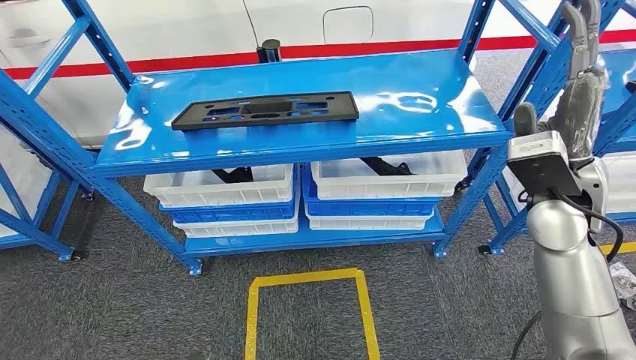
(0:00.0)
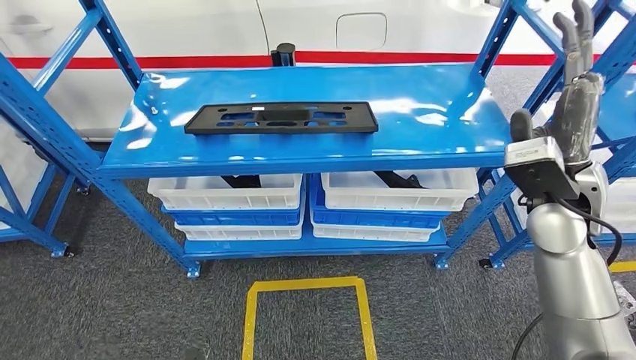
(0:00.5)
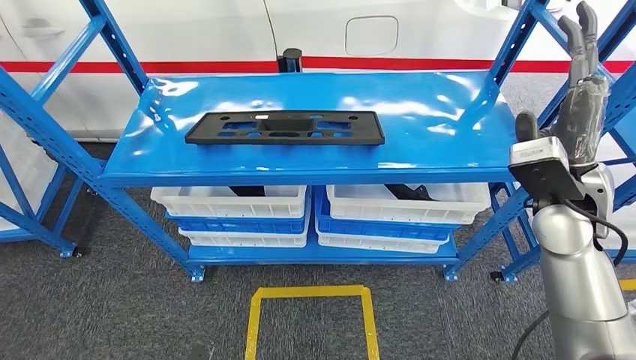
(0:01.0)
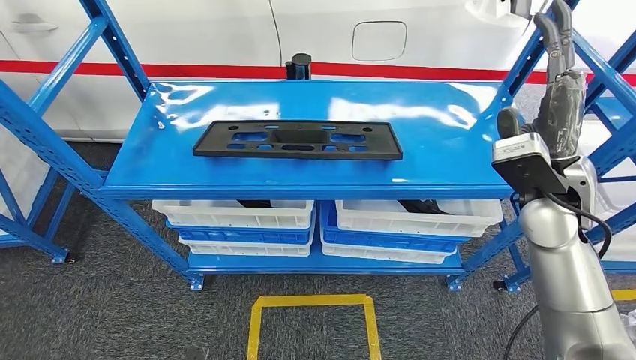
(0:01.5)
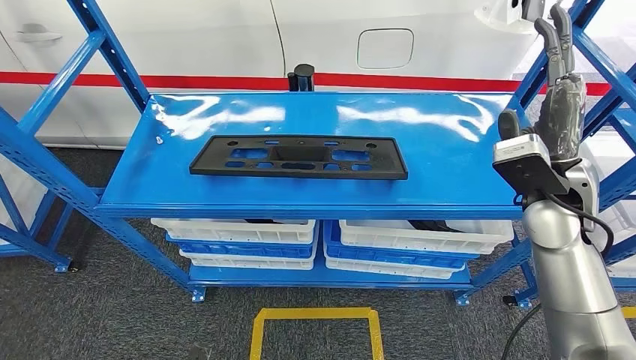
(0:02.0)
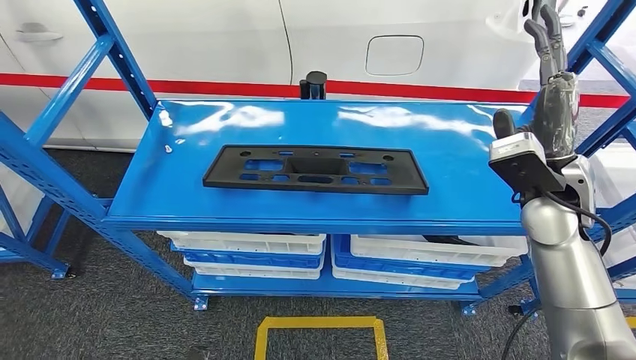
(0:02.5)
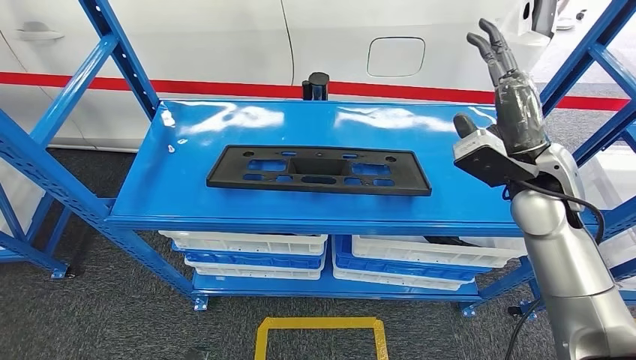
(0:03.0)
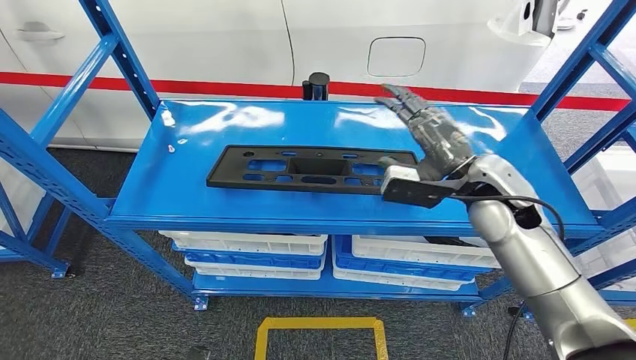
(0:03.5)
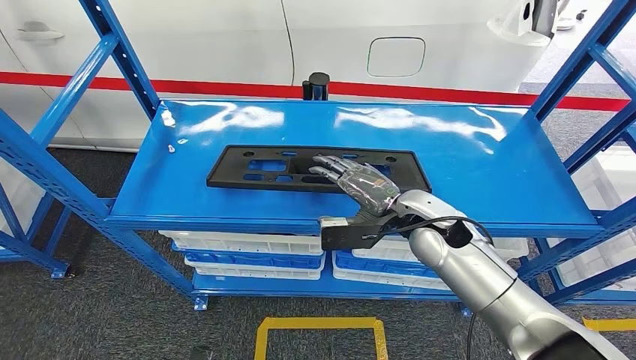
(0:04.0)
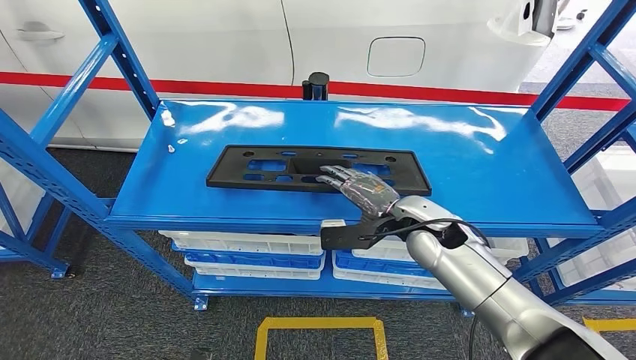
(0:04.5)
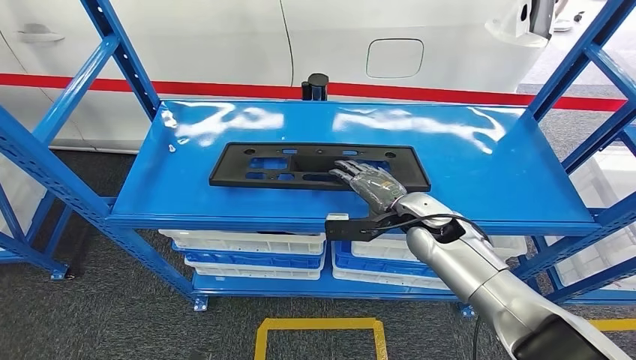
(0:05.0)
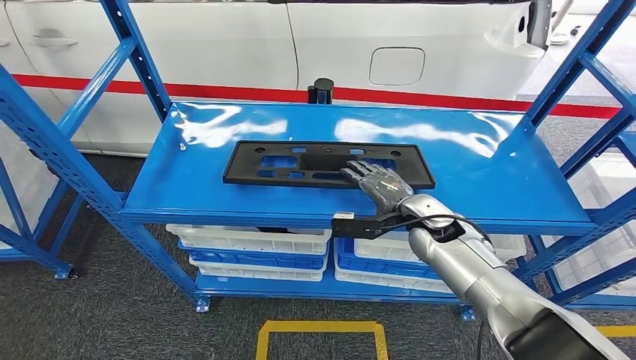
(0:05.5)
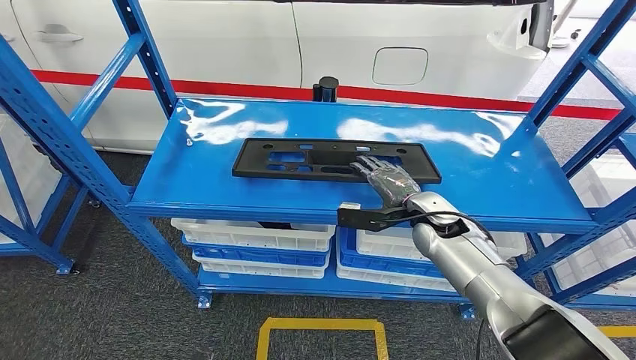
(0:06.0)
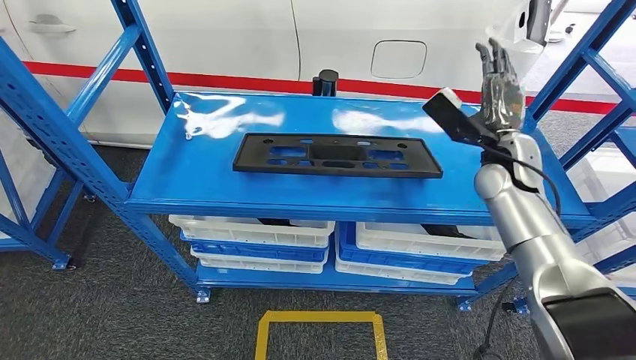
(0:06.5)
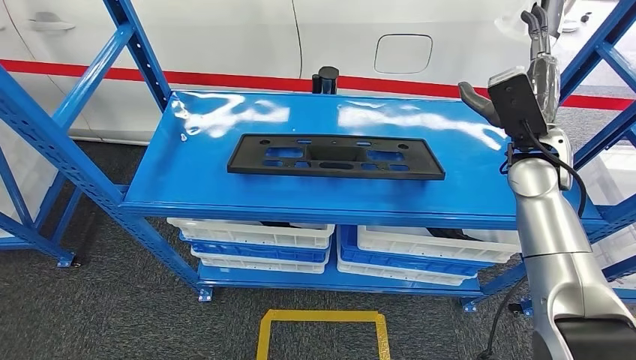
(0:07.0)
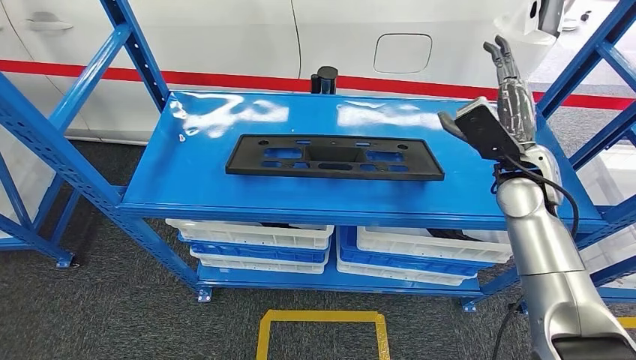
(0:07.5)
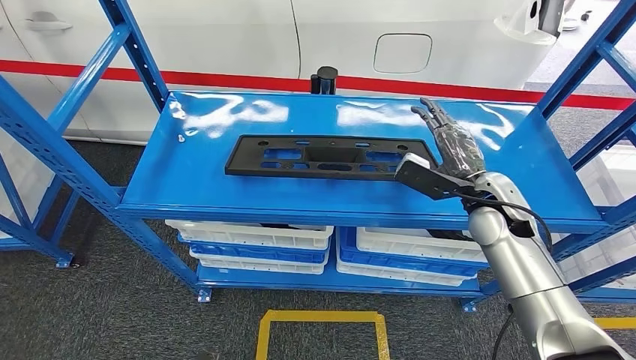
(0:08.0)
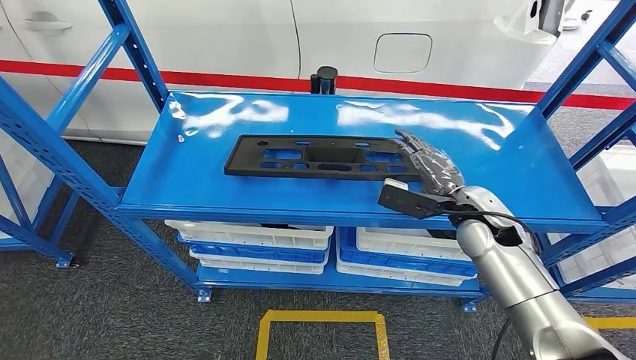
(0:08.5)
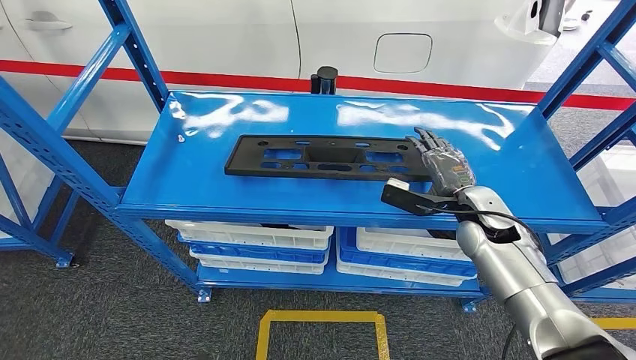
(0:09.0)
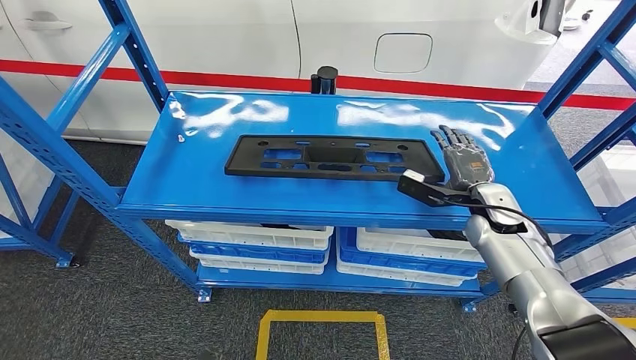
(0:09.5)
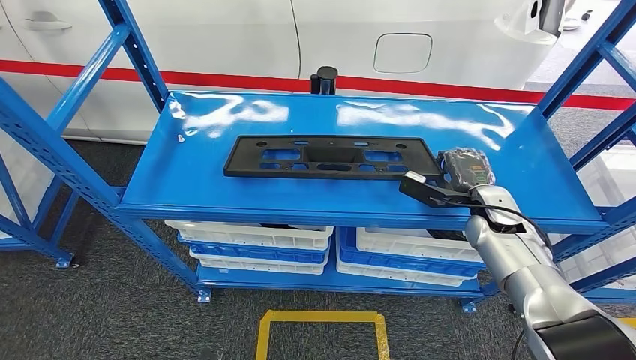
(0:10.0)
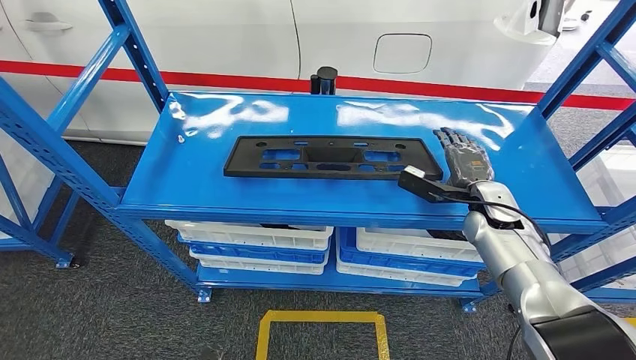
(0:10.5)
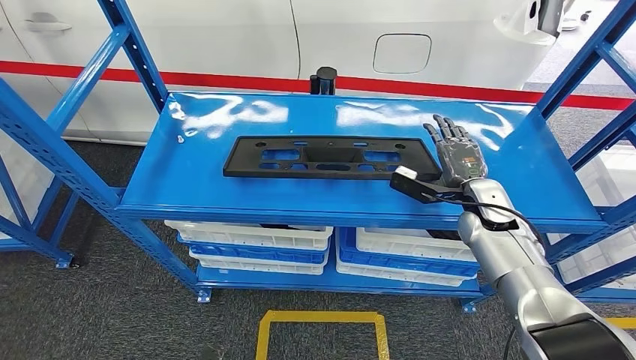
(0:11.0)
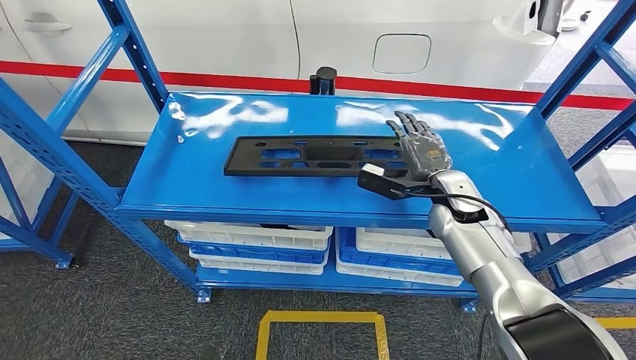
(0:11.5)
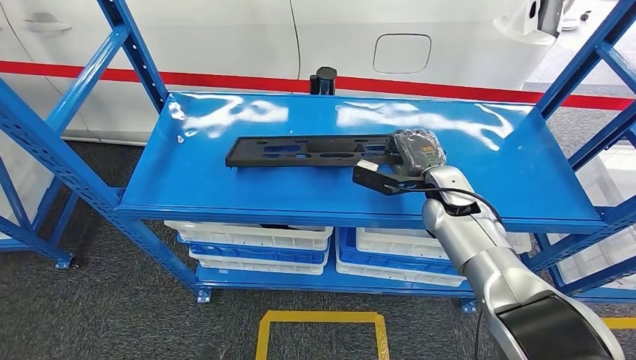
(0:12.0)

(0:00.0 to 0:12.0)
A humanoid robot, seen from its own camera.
0:08.0 - 0:10.0: The right hand is displaced downward by some 5 cm.
0:10.0 - 0:12.0: The right hand heads to the left, covering some 10 cm.

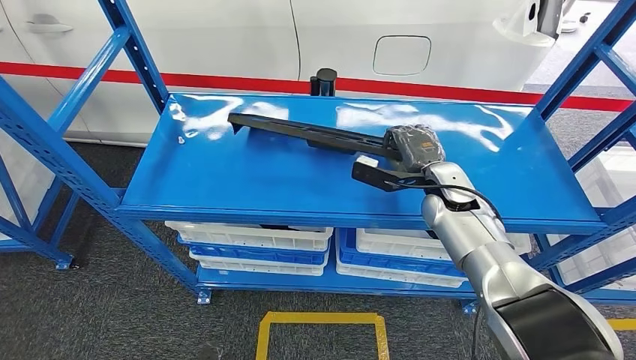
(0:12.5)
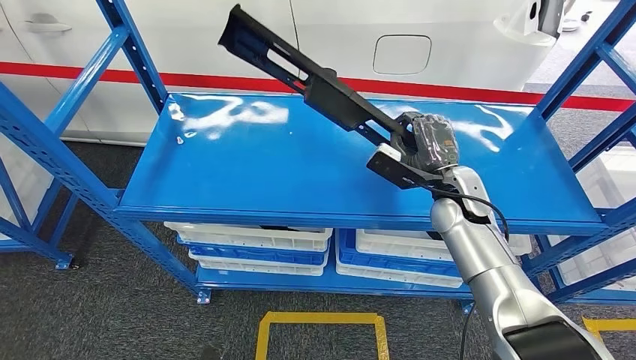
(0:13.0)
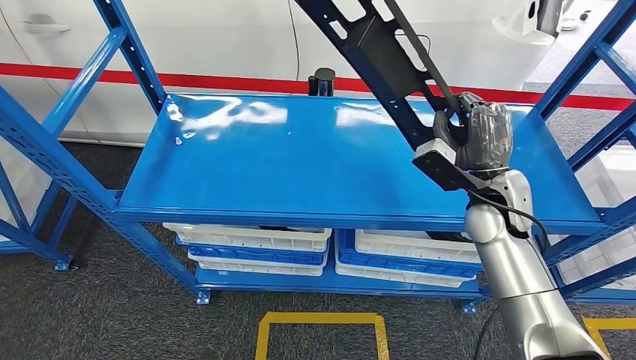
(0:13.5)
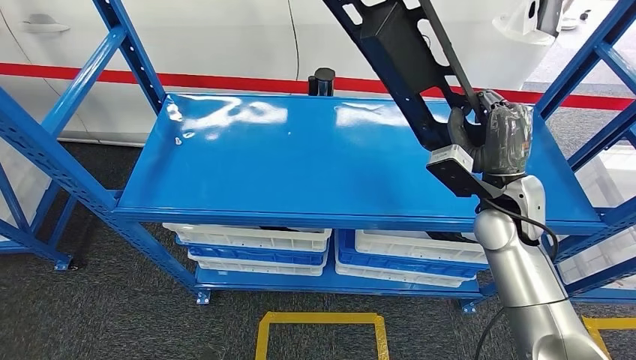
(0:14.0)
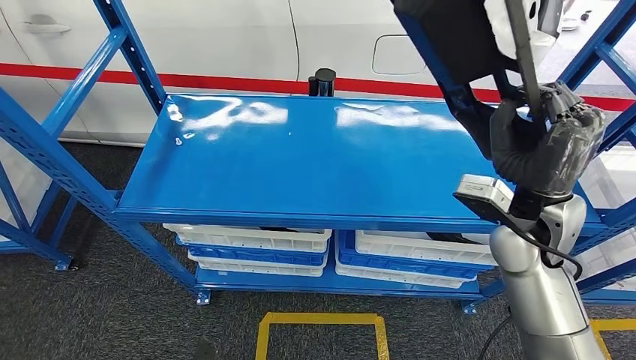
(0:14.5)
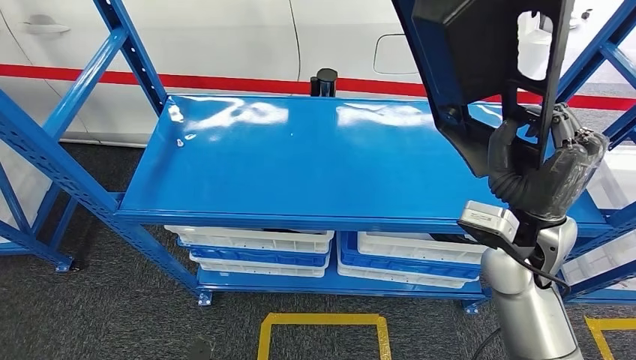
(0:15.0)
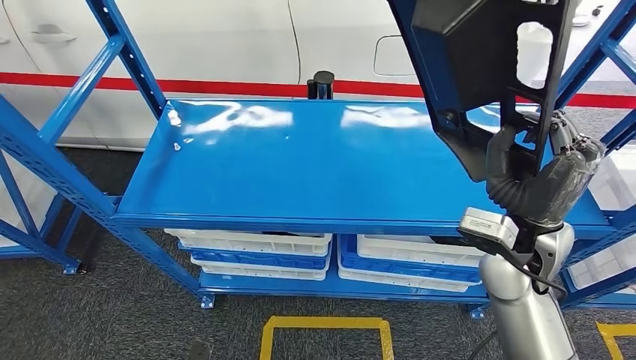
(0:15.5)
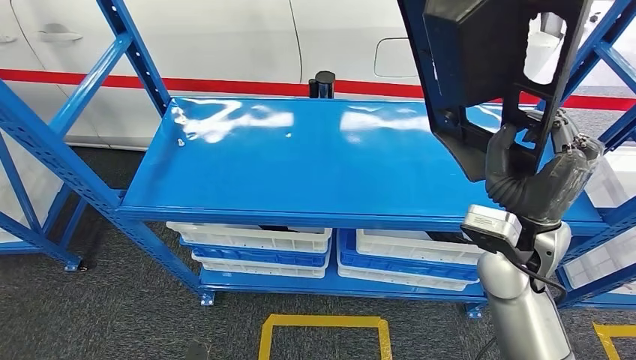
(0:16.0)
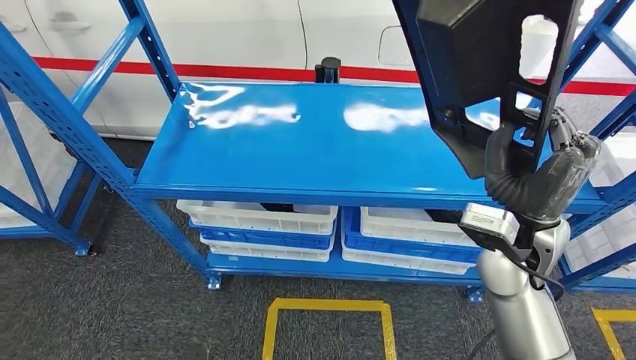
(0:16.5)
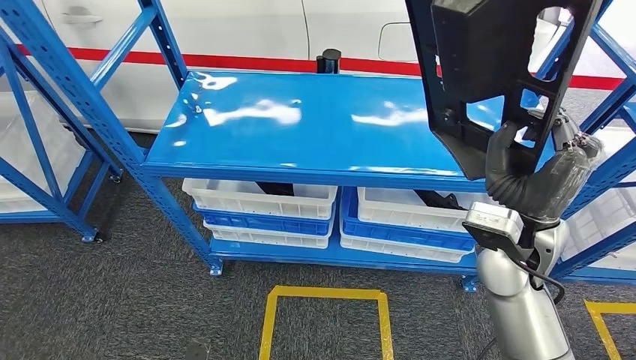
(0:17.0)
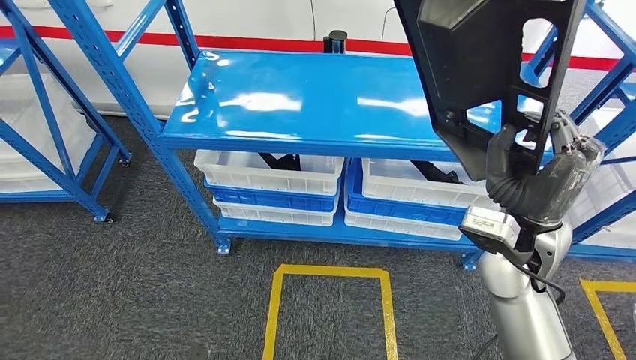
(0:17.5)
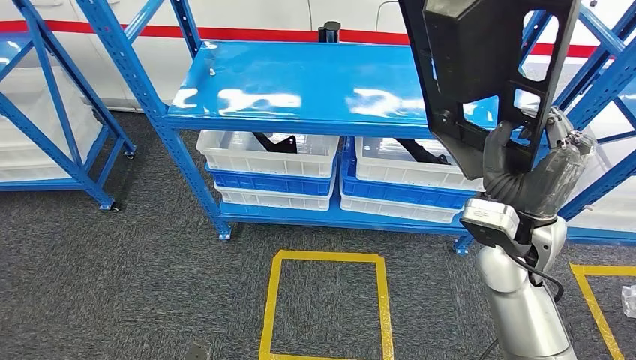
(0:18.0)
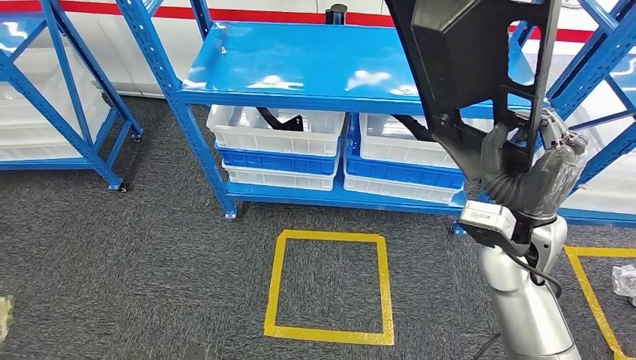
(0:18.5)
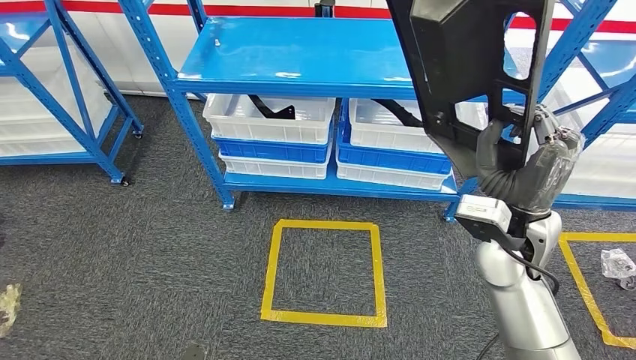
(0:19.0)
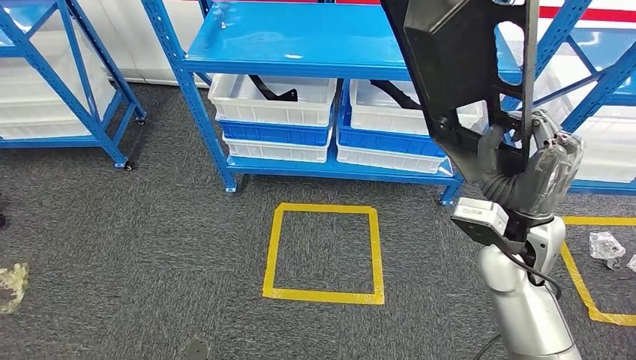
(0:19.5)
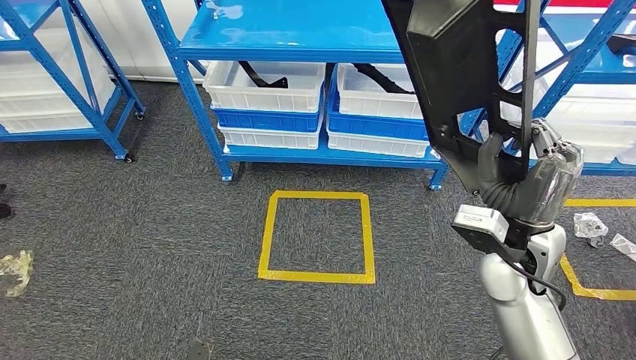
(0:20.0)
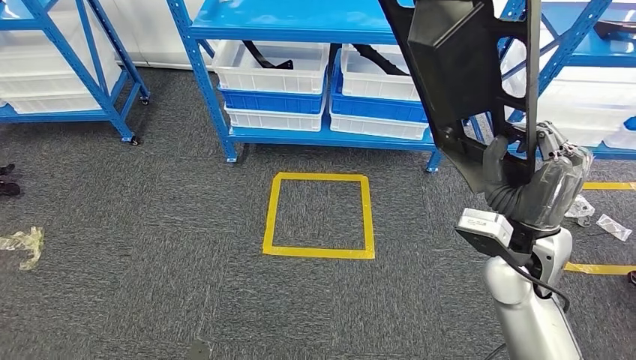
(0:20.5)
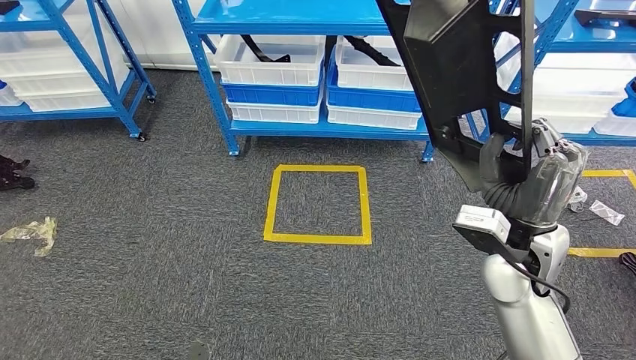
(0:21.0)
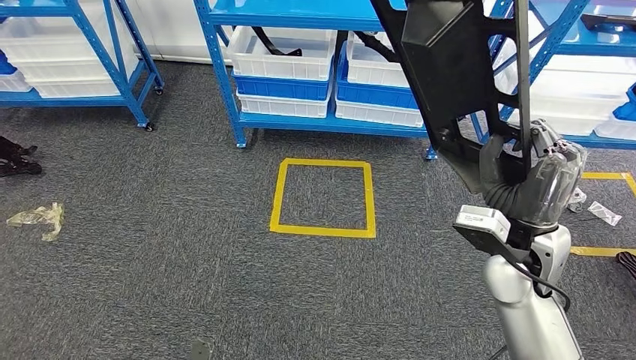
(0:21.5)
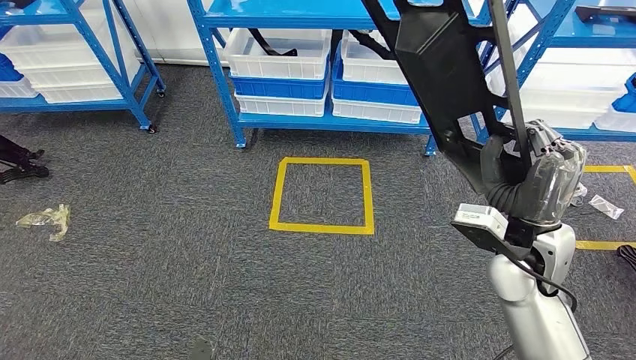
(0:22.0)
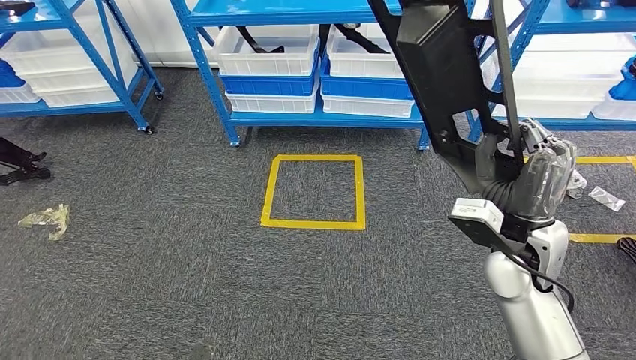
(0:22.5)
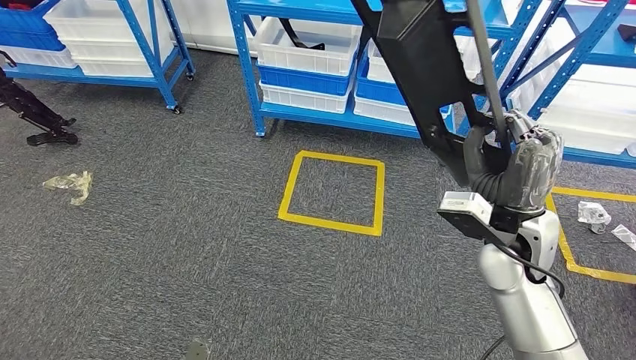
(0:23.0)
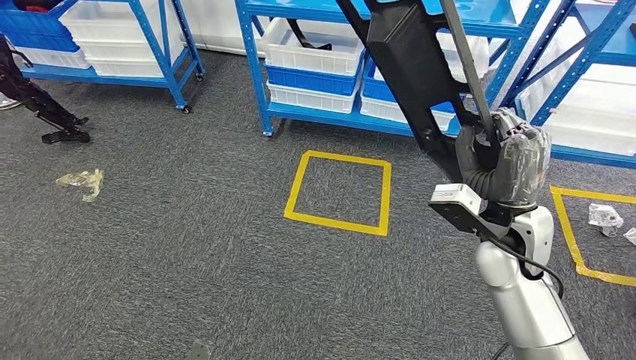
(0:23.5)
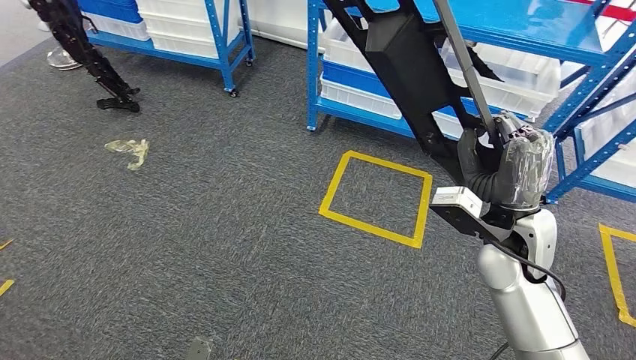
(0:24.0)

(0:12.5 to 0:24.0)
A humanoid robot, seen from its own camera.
Step, 0:12.5 - 0:16.5: Pick up the large material from the shelf.
